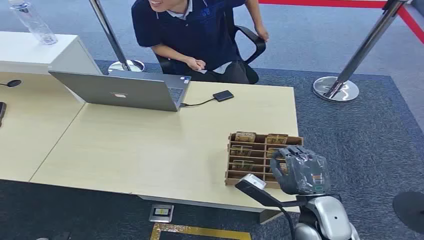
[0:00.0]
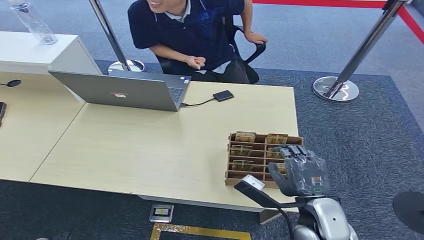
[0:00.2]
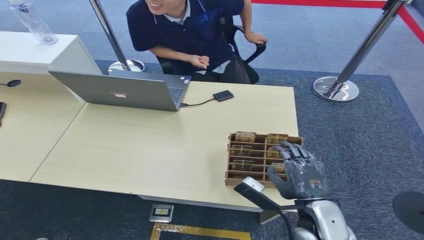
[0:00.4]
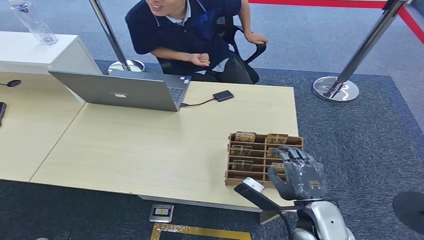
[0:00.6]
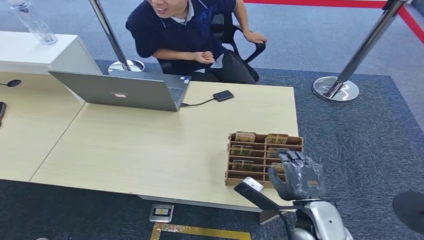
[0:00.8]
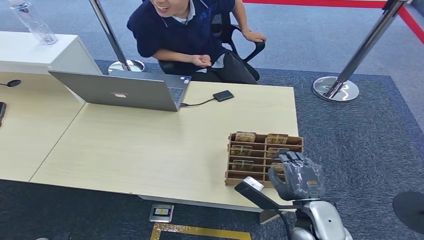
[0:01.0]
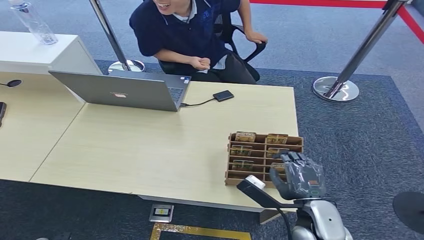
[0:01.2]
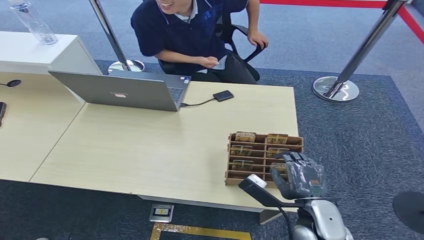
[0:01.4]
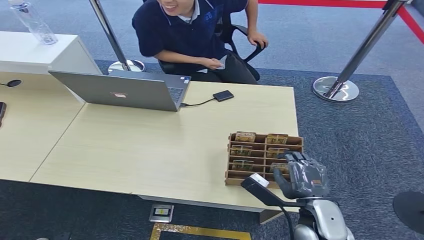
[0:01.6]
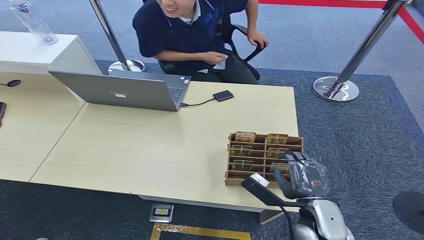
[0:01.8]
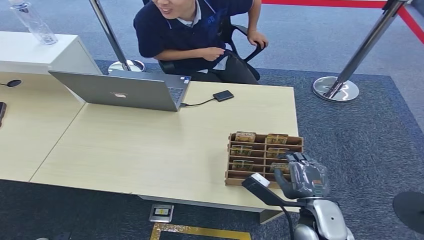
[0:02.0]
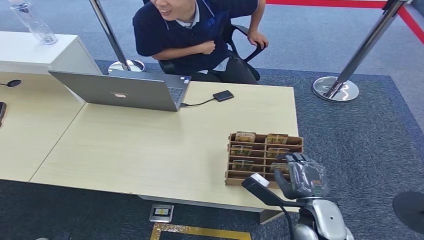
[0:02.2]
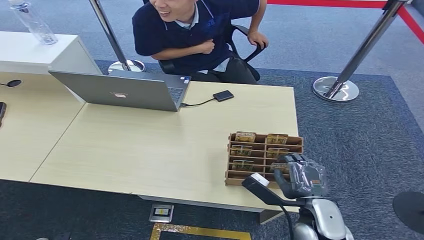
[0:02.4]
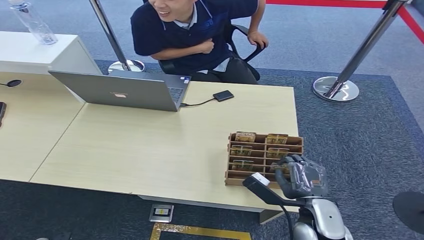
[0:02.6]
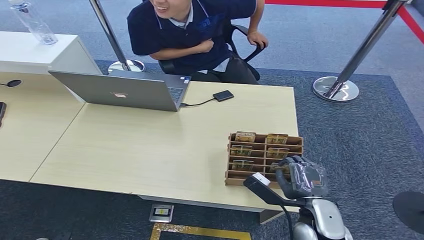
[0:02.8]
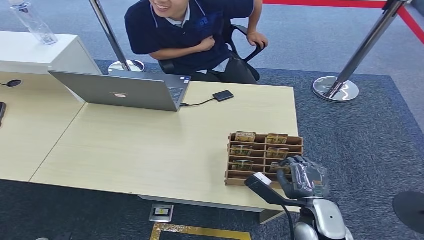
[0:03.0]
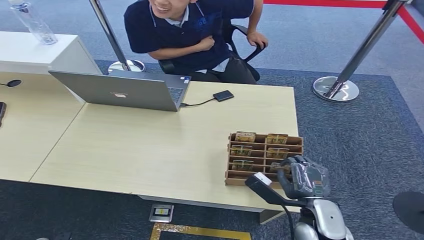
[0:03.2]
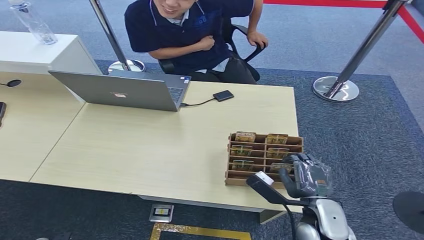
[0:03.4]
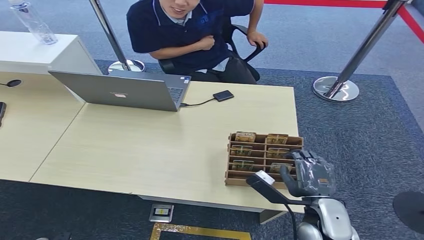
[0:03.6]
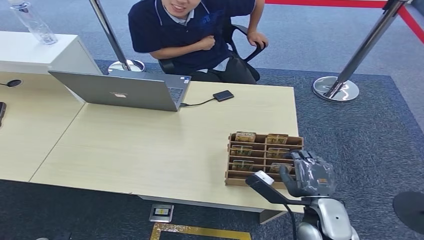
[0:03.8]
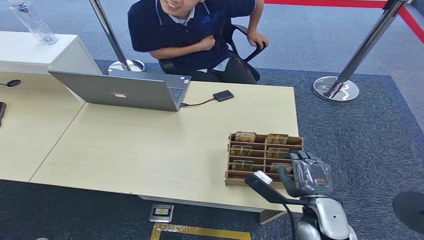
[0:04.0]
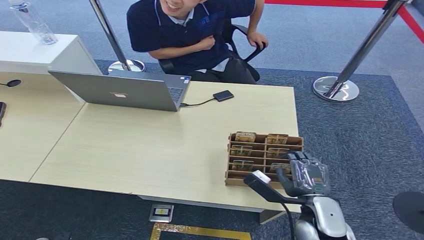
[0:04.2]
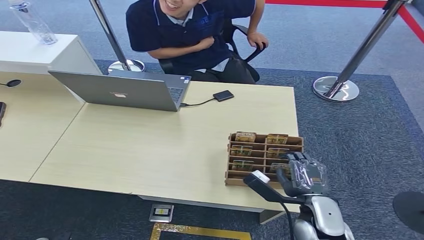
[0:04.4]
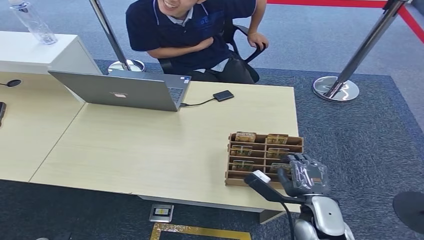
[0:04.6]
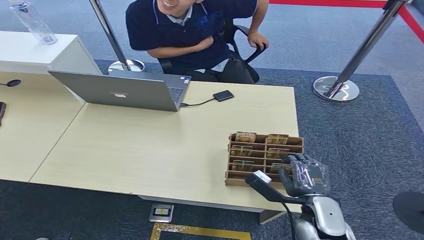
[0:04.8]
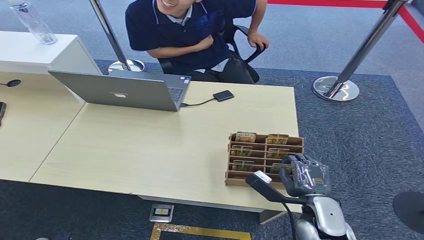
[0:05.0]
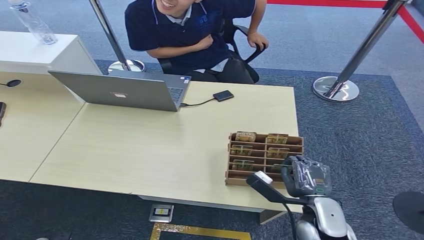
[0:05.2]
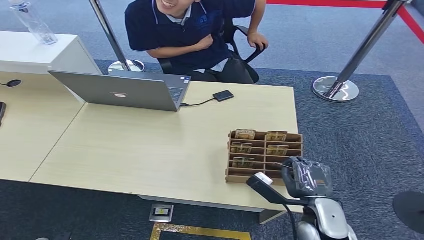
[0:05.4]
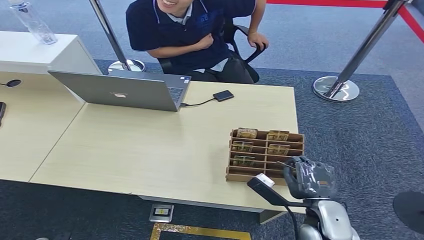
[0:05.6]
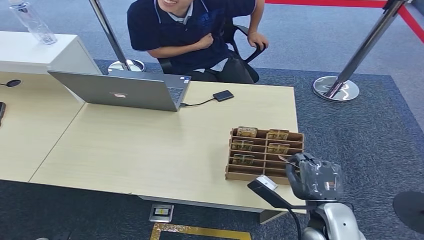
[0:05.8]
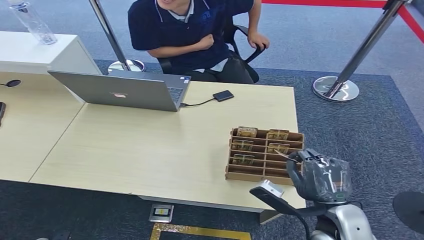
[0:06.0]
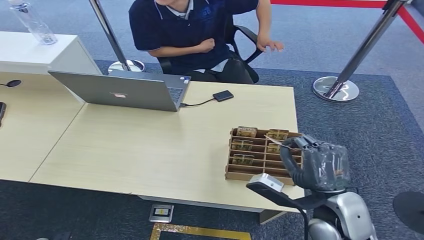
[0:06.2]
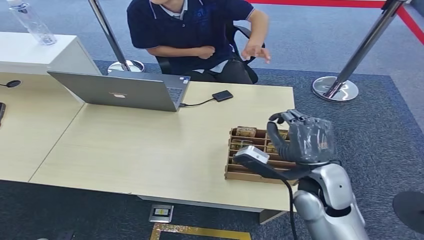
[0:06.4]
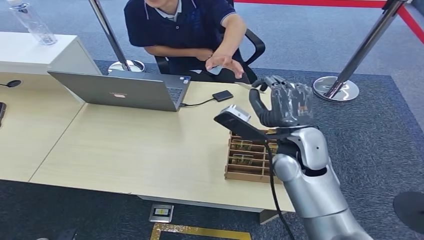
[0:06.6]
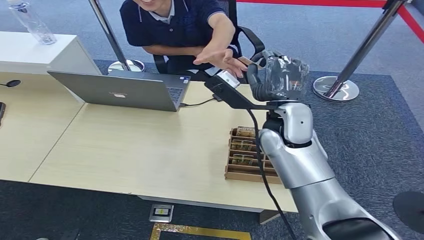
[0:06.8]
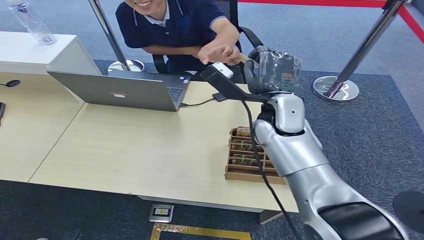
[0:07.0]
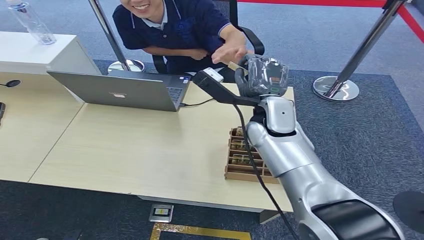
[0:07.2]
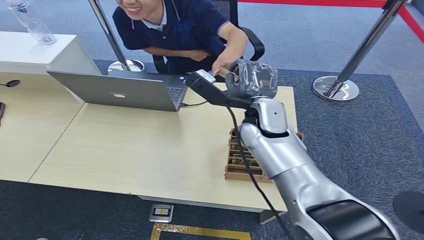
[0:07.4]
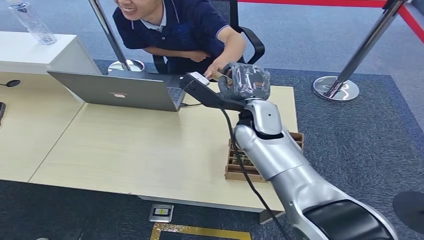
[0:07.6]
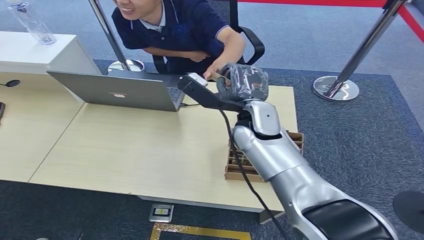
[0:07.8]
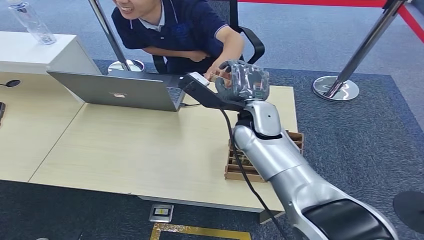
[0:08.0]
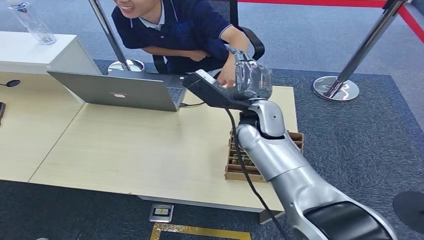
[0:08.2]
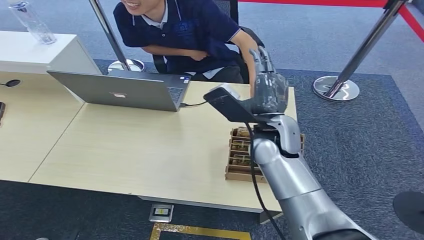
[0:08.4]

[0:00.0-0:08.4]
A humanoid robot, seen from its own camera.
Step, 0.0 to 5.8 s: Pick up the room card from the card holder.
Step, 6.0 to 8.4 s: Hand the room card to the target.
1.4 to 4.2 s: The hands move only a little.
4.2 to 5.6 s: Both hands stay about where they are.
5.6 to 7.0 s: The right hand goes about 30 cm forward, upward and to the left.
7.0 to 8.4 s: The right hand ends up about 5 cm from where it was.

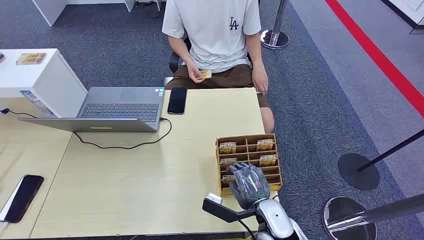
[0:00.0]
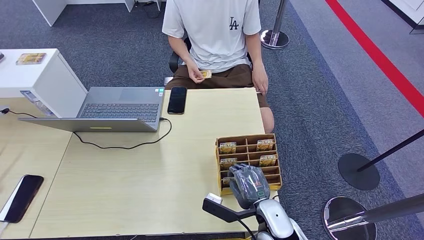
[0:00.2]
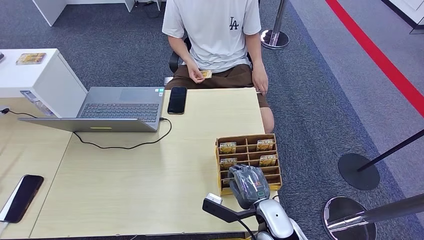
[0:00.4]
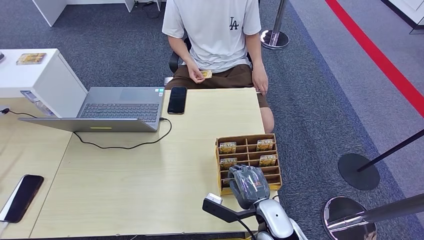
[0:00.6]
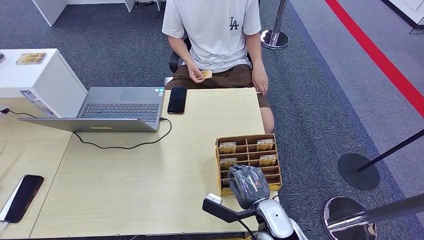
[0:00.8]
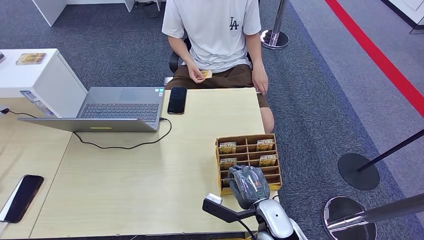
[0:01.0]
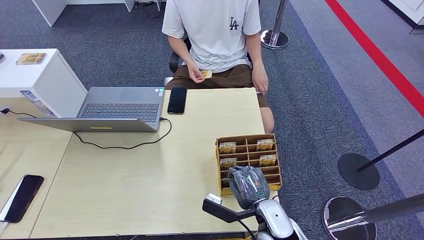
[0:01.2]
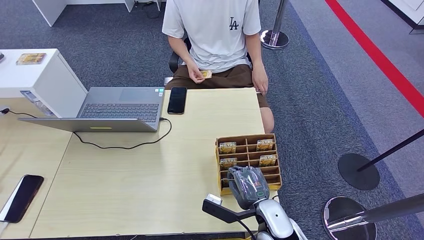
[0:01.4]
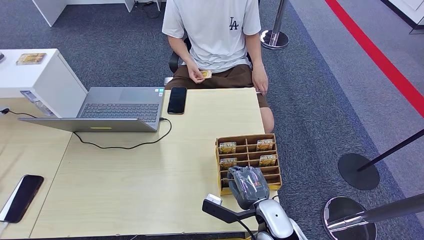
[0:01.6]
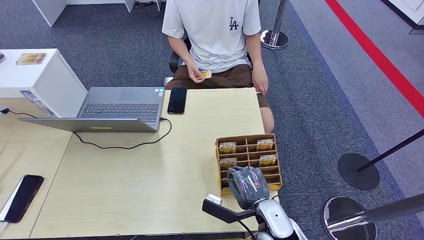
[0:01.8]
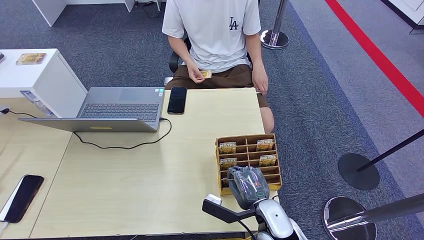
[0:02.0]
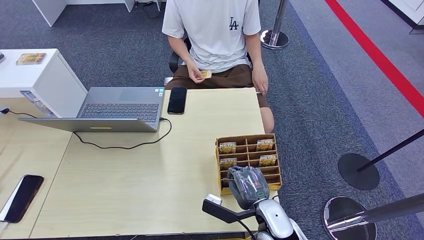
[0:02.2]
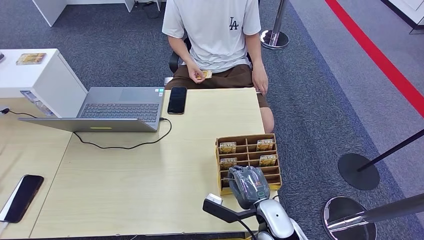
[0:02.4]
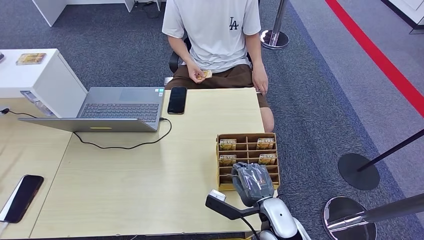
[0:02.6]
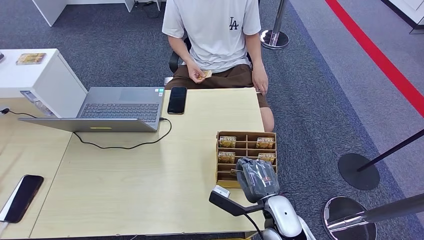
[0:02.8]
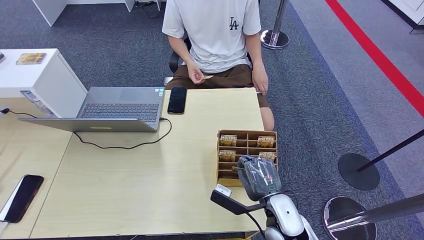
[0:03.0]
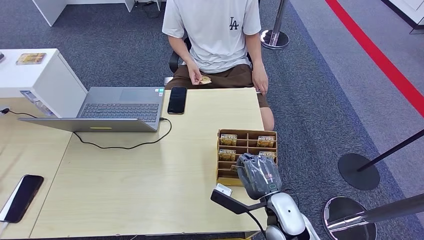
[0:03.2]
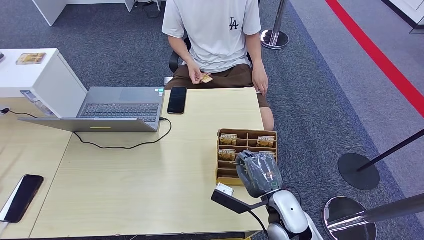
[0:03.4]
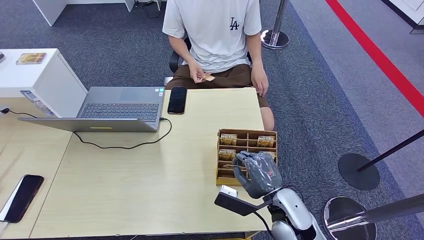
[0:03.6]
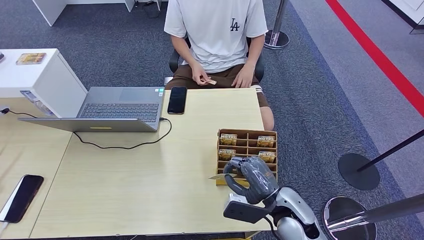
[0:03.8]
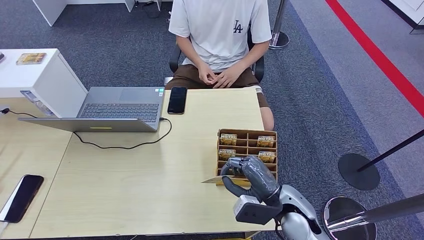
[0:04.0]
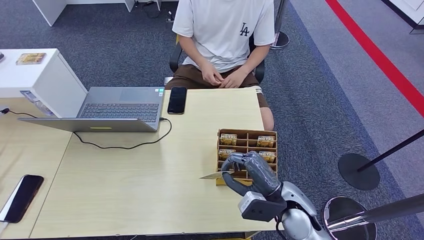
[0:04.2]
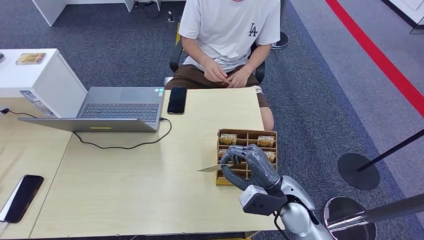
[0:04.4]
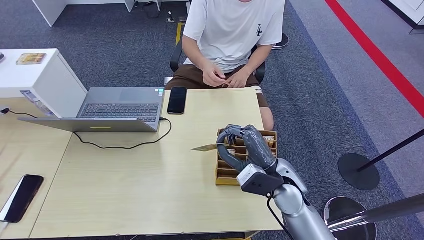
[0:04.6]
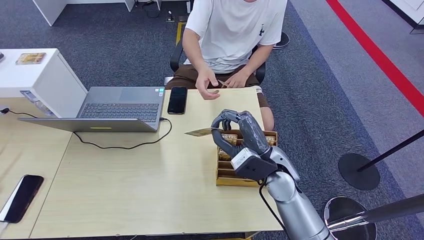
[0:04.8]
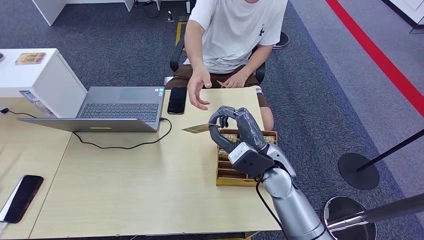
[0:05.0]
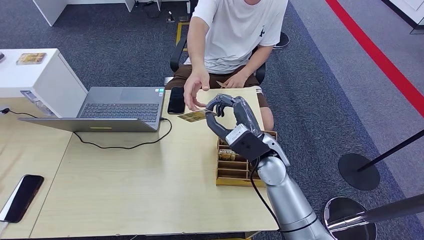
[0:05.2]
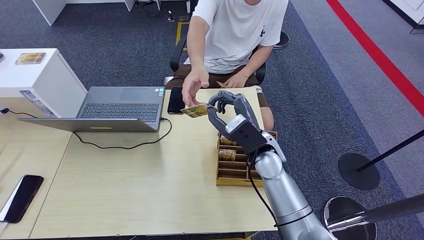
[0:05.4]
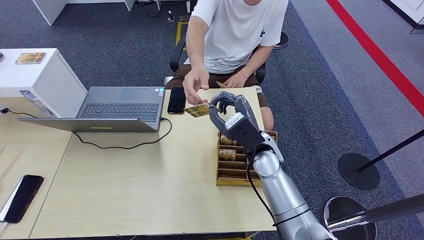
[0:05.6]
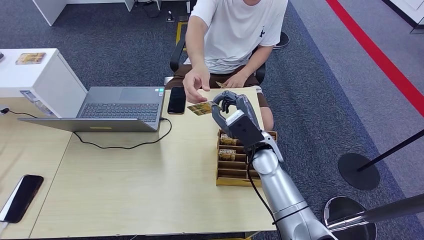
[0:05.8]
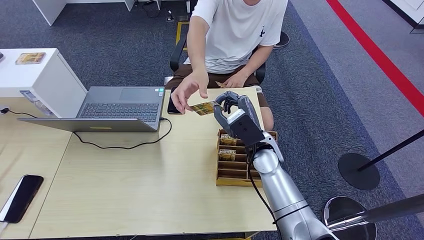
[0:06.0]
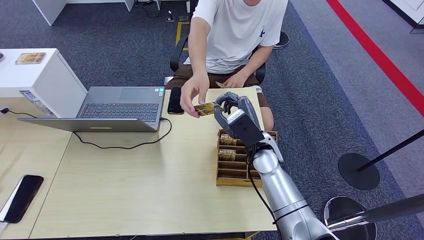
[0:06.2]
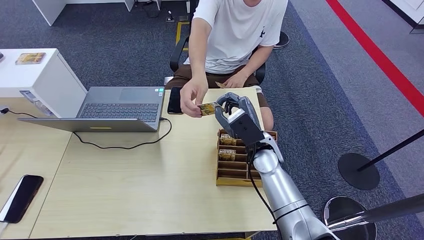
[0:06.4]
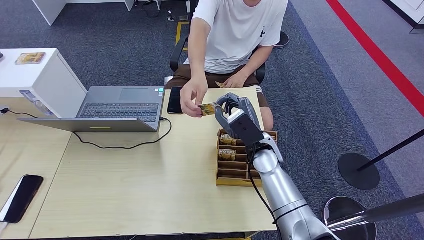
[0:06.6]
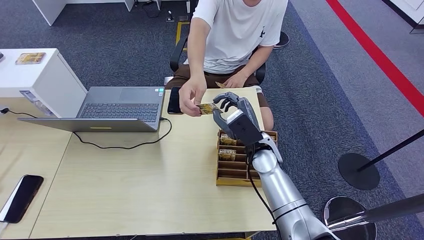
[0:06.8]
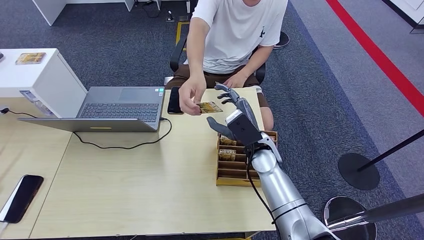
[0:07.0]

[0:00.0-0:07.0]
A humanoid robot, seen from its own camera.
Step, 0.0 to 3.6 s: Pick up the room card from the card holder.
Step, 4.0 to 7.0 s: Hand the room card to the target.
1.4 to 2.8 s: The hands move only a little.
4.2 to 5.6 s: The right hand moves forward and to the left, approximately 15 cm.
5.6 to 7.0 s: There are only small adjustments of the hands.

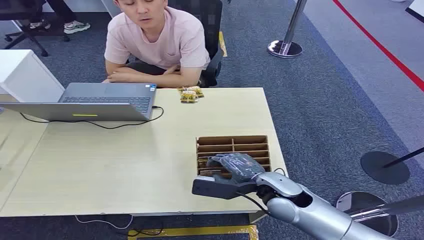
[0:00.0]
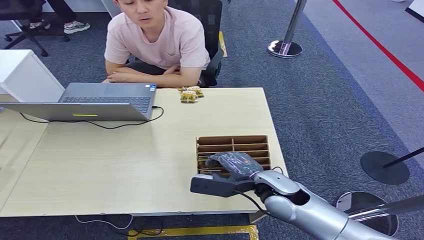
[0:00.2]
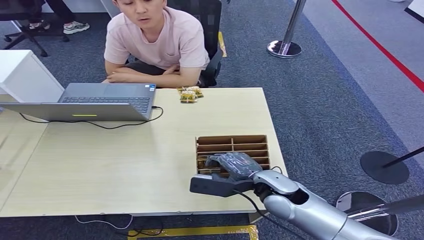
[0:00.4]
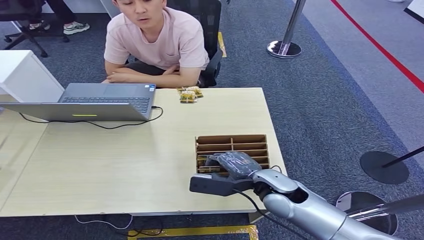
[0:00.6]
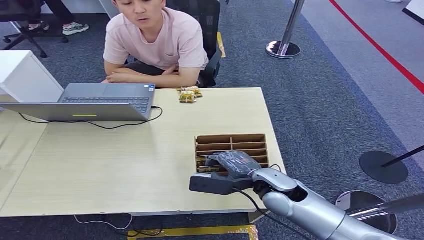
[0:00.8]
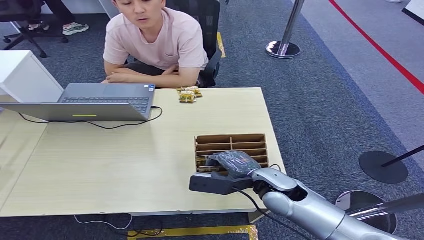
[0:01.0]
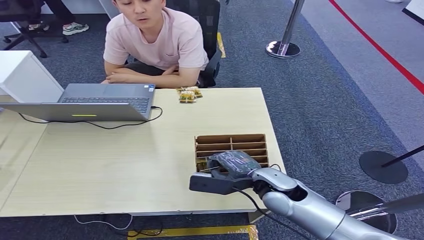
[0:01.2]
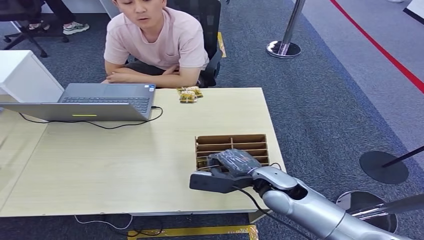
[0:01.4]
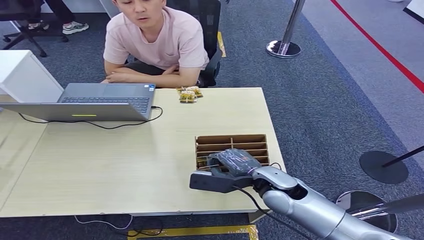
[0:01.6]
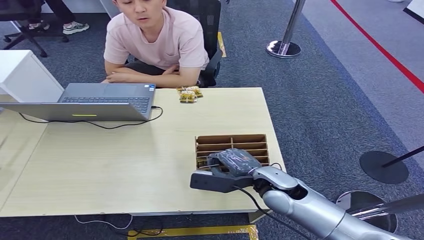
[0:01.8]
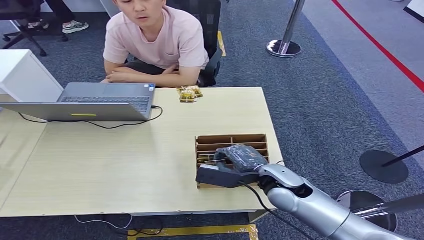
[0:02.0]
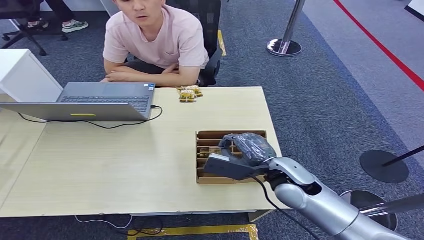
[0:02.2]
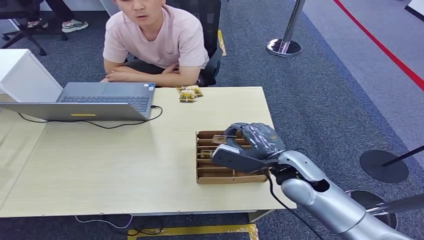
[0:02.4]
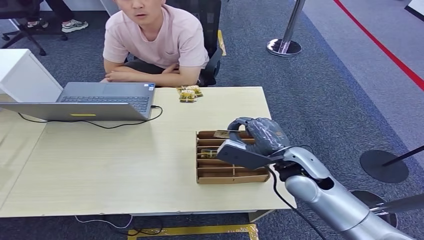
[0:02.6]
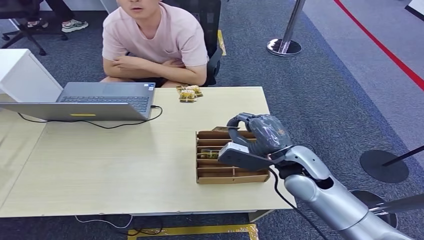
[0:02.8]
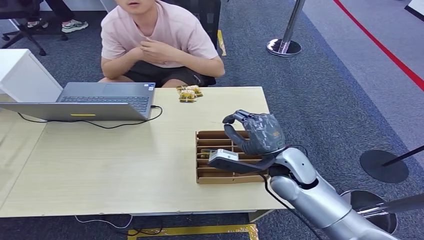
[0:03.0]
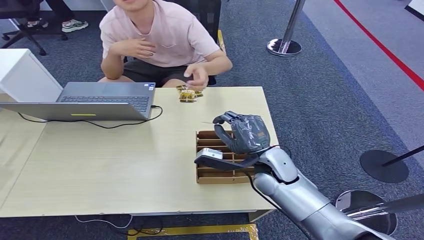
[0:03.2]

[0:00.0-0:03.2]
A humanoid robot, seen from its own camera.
Step, 0.0 to 2.2 s: Pick up the room card from the card holder.
1.6 to 3.2 s: The right hand moves about 5 cm.
